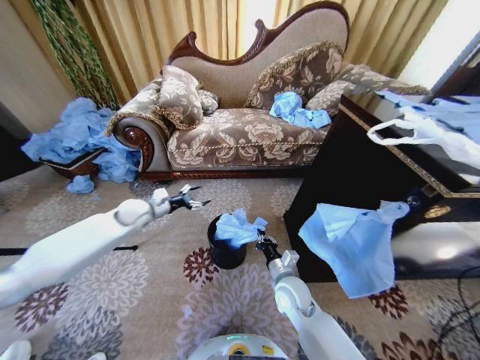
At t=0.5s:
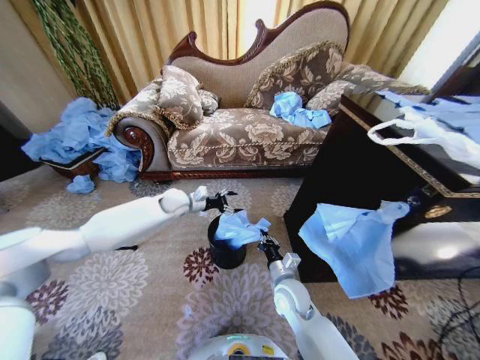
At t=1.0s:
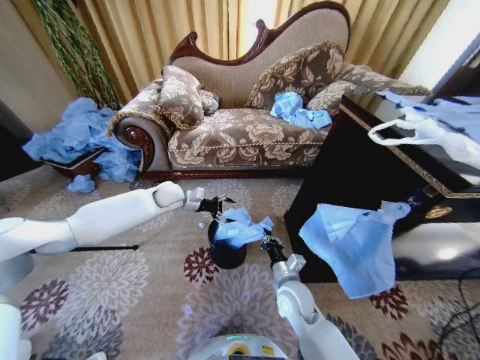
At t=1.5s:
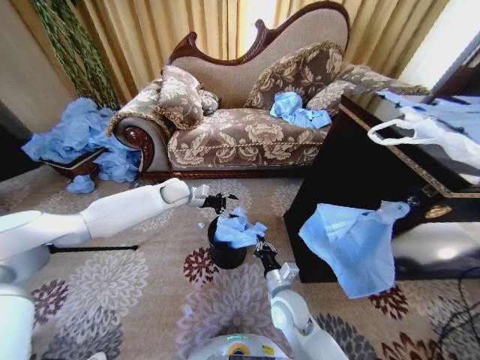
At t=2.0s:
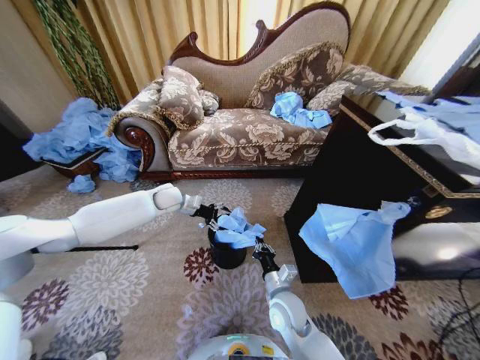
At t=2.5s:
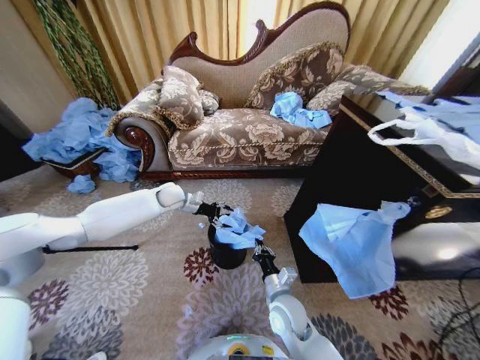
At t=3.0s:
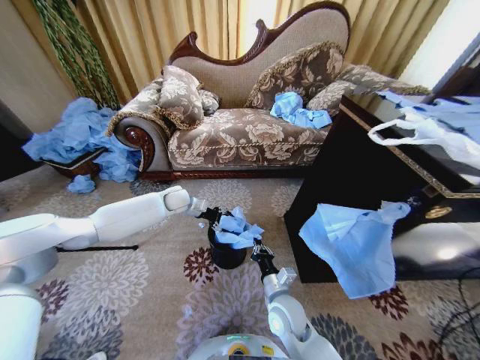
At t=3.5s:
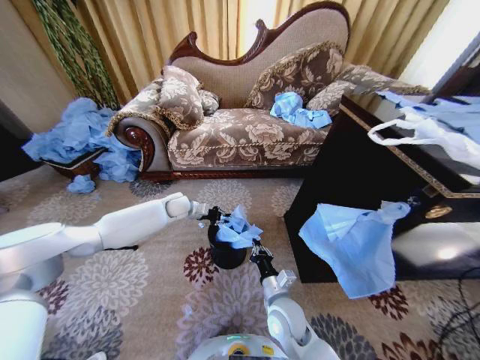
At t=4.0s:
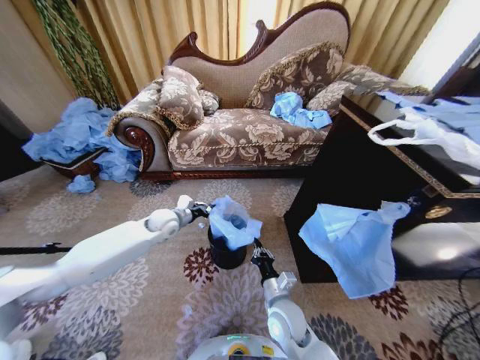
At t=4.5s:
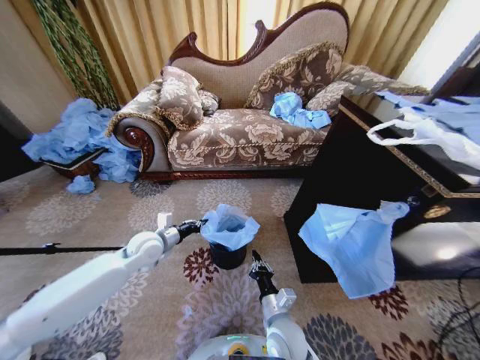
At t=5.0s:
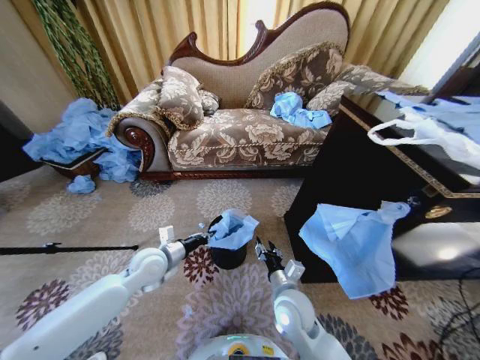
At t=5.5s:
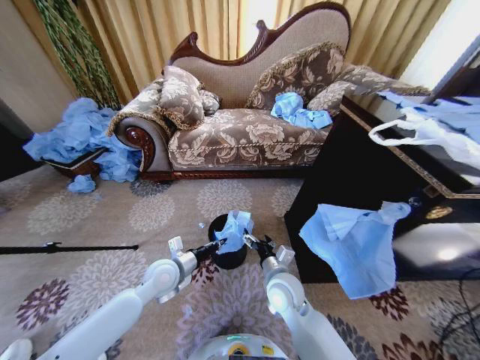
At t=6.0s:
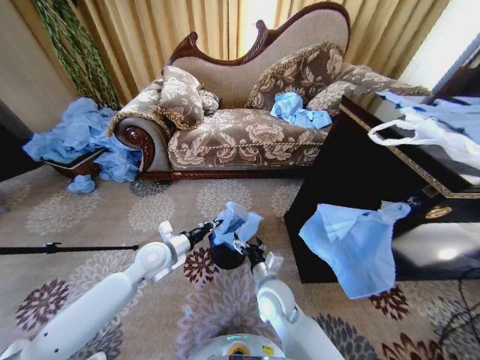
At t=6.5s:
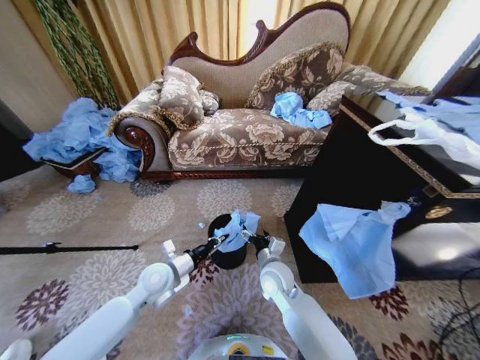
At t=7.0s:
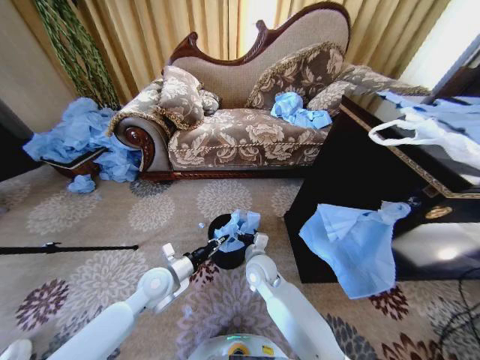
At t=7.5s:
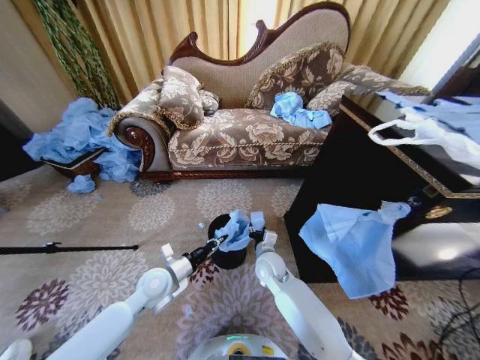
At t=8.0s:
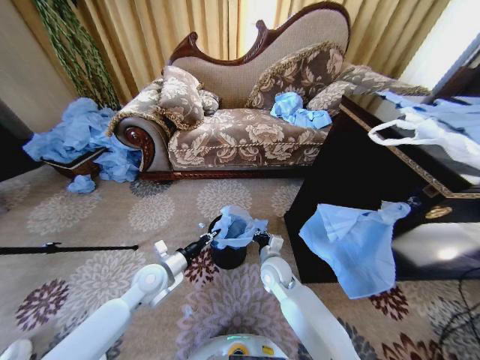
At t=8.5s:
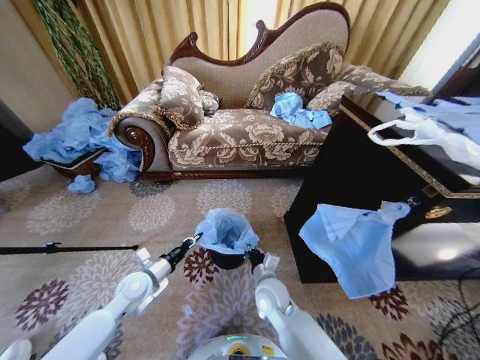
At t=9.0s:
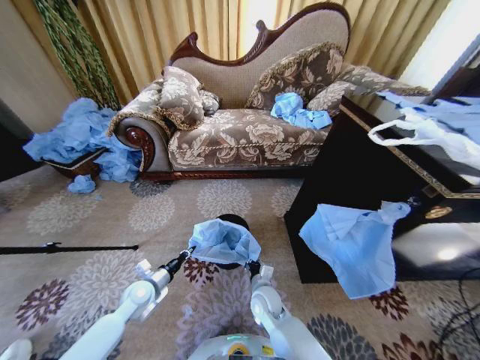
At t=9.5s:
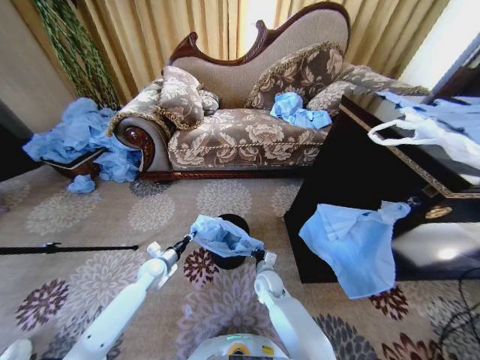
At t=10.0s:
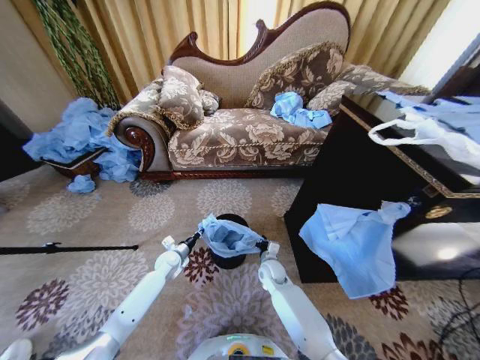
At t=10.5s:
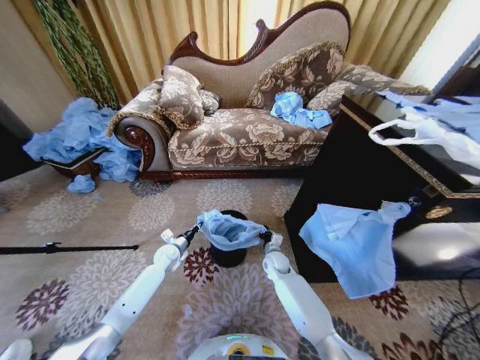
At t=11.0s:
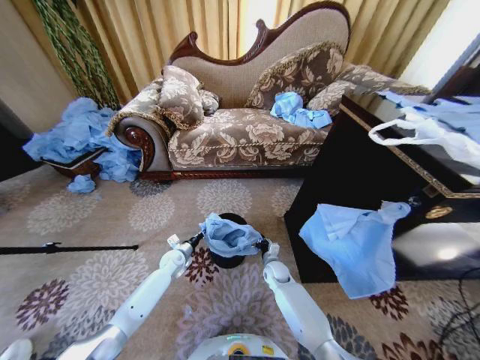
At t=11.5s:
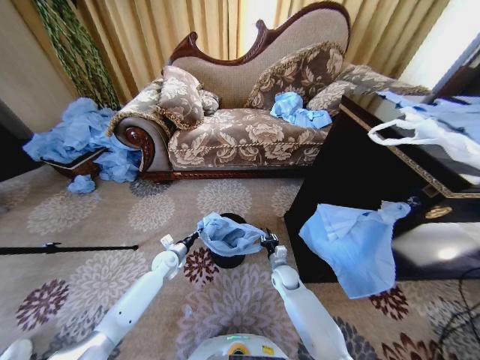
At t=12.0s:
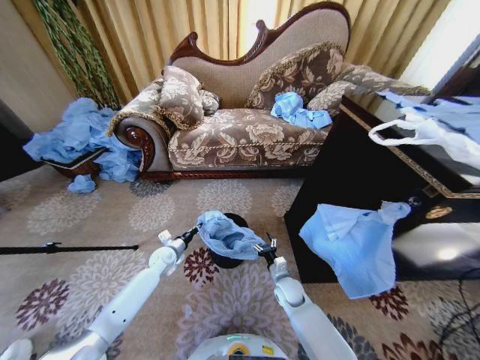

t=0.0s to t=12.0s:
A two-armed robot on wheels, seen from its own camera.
Task of the whole recording: Place a garbage bag over the trash bin.
t=0.0s to t=2.0s: The left gripper travels to the right and forward by some 10 cm.
t=2.0s to t=4.0s: The left gripper is displaced backward and downward by some 10 cm, and closes.
t=4.0s to t=6.0s: The right gripper moves roughly 5 cm, and opens its fingers. The left gripper travels backward by about 10 cm.
t=6.0s to t=8.0s: The left gripper changes place by some 5 cm. The right gripper heads forward, covering about 10 cm, and closes.
t=8.0s to t=10.0s: The left gripper goes about 20 cm downward and forward. Meanwhile the right gripper shifts some 10 cm downward.
t=10.0s to t=12.0s: The right gripper travels to the right and backward by approximately 10 cm, and opens its fingers.

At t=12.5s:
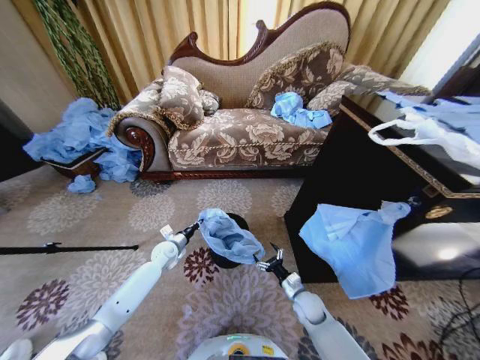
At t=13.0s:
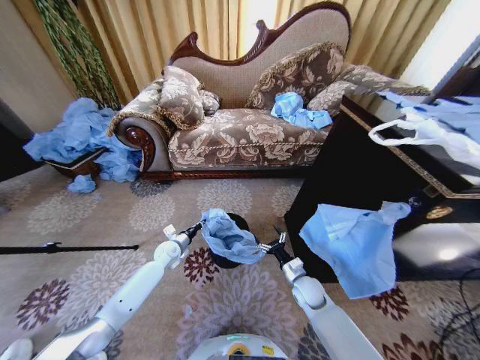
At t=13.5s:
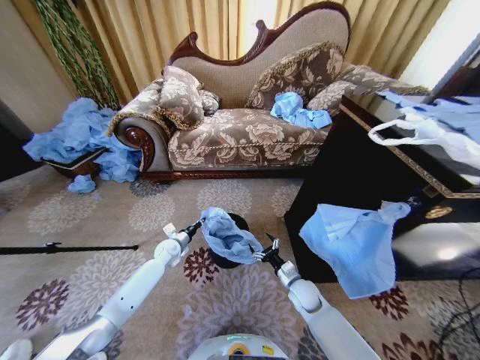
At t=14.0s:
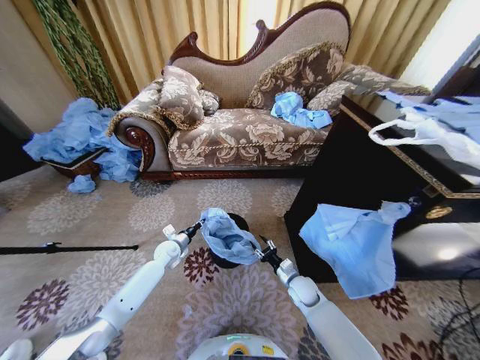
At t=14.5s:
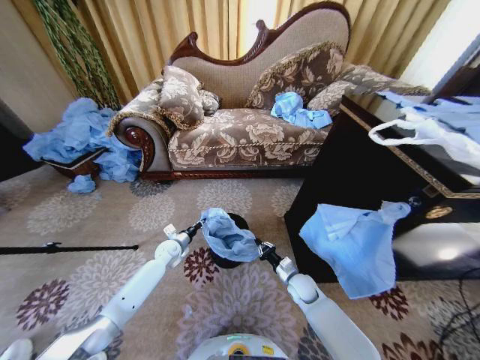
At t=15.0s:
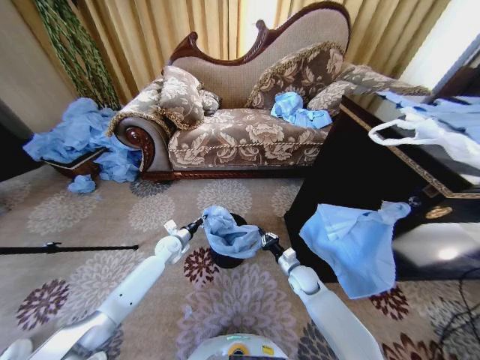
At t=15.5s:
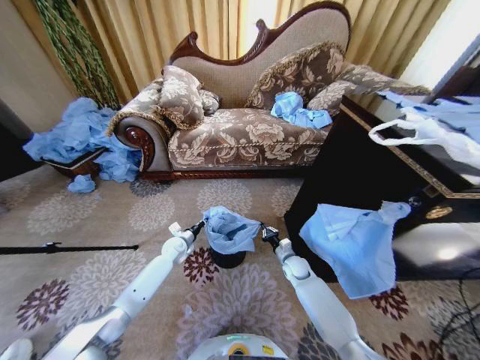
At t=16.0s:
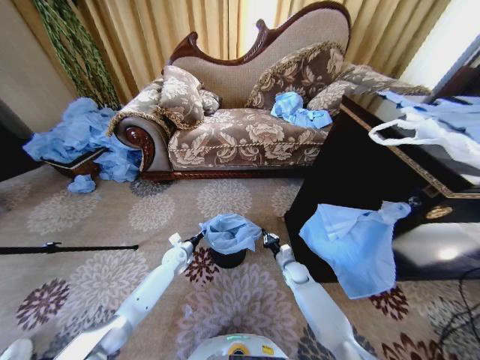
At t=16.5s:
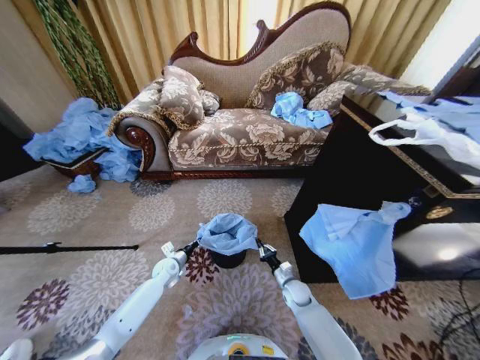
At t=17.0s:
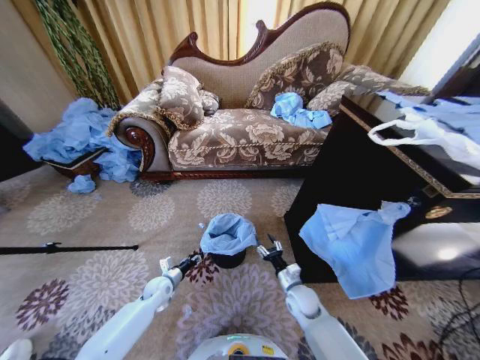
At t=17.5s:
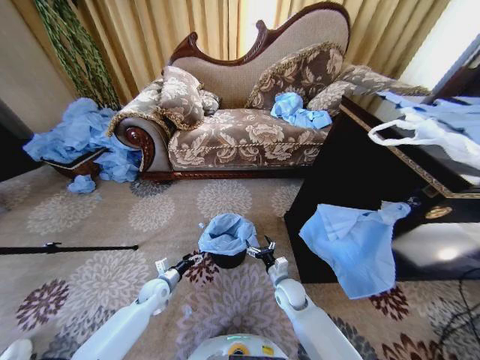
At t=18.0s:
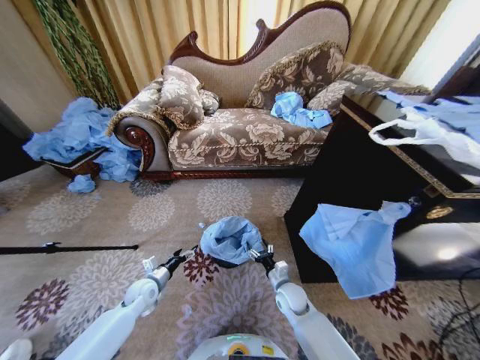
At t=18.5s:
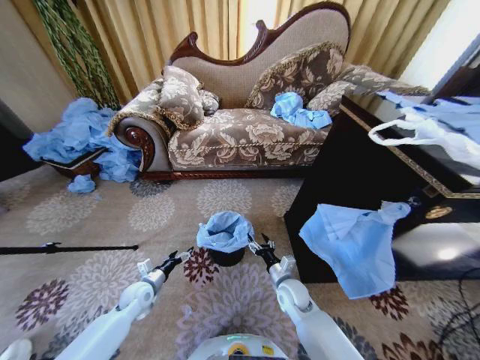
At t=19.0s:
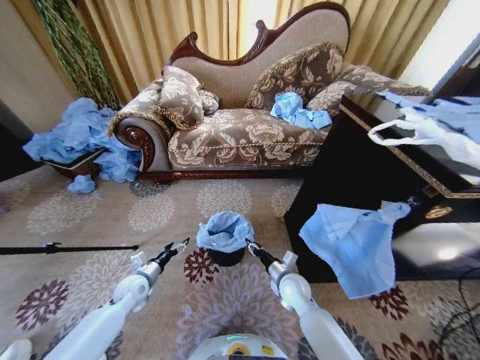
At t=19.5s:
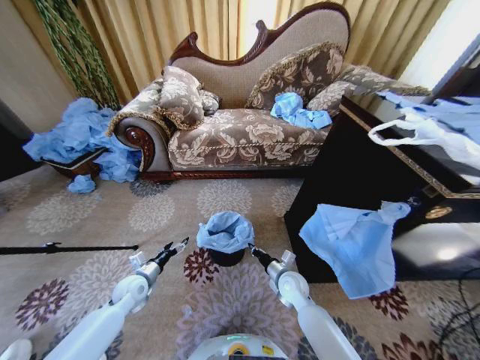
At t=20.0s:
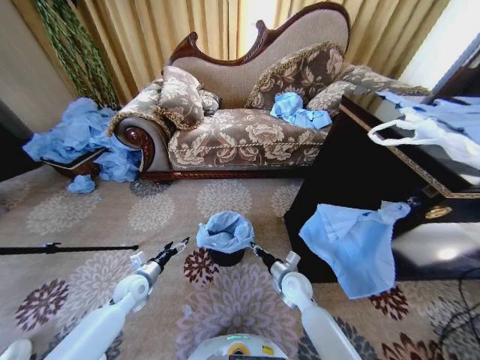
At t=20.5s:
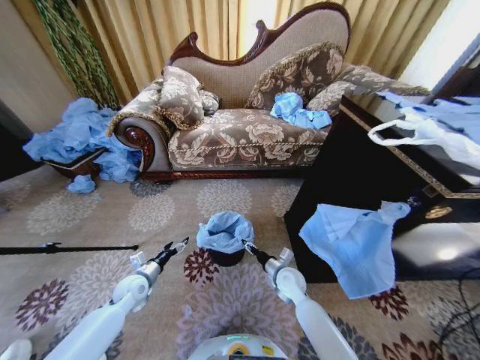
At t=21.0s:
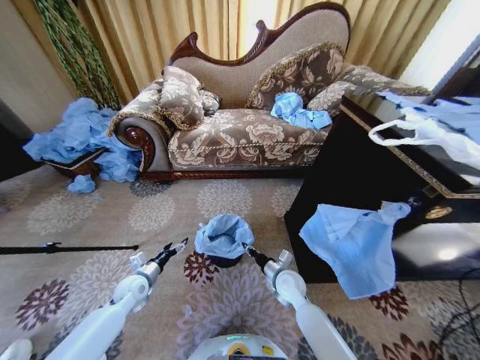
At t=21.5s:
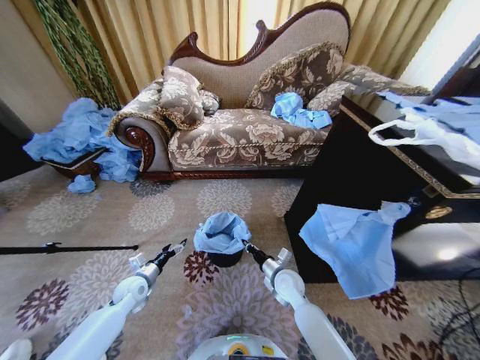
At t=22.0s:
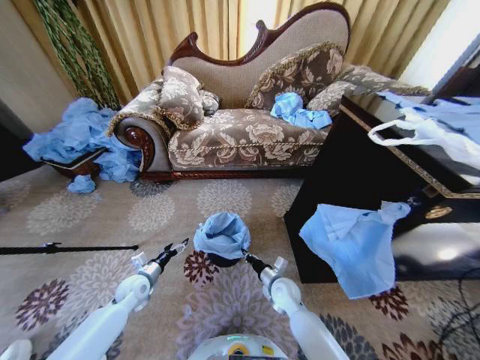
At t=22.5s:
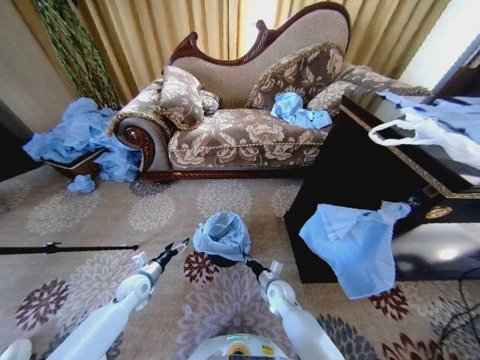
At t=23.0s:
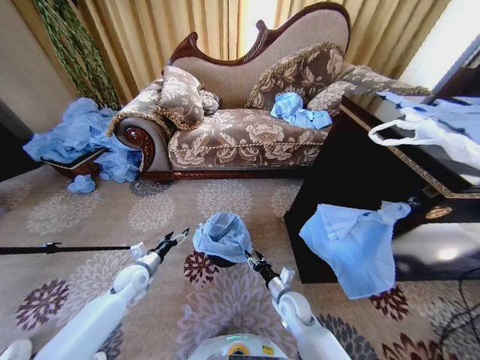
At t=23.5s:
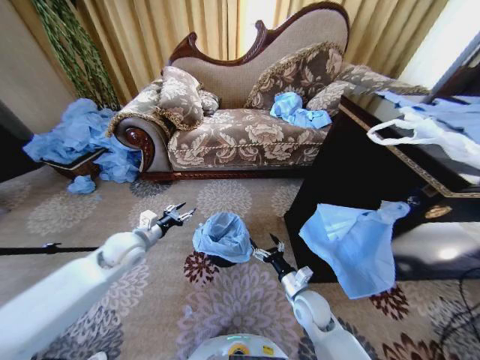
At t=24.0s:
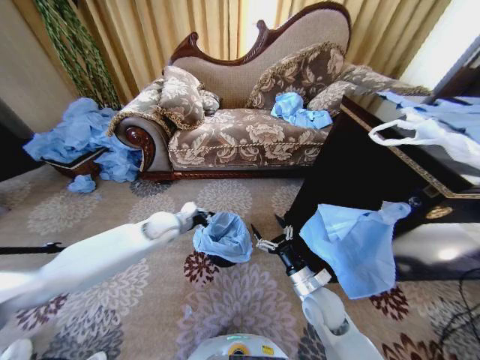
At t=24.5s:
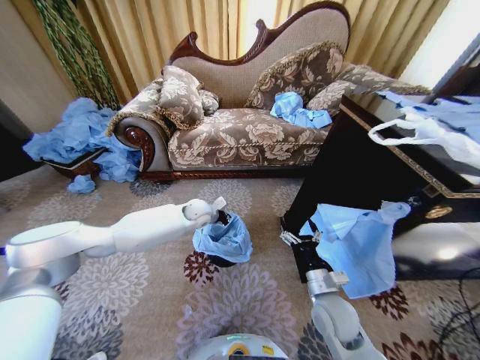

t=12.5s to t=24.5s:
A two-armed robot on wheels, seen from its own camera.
Task of the whole recording: Place a garbage bag over the trash bin.
t=12.5s to t=14.5s: The right gripper is displaced forward by some 5 cm, and closes its fingers.
t=14.5s to t=16.5s: The right gripper moves about 5 cm forward and comes back. Meanwhile the left gripper is displaced backward by approximately 5 cm.
t=16.5s to t=18.5s: The left gripper shifts approximately 10 cm backward and to the left, and opens its fingers. The right gripper travels upward and to the left by roughly 10 cm, and opens.
t=18.5s to t=20.5s: The right gripper closes and opens again.
t=20.5s to t=22.5s: The right gripper is displaced downward by approximately 10 cm, and closes.
t=22.5s to t=24.5s: The right gripper shifts approximately 20 cm upward, backward and to the right, and opens up, while the left gripper travels to the right, forward and upward by roughly 35 cm, and closes its fingers.

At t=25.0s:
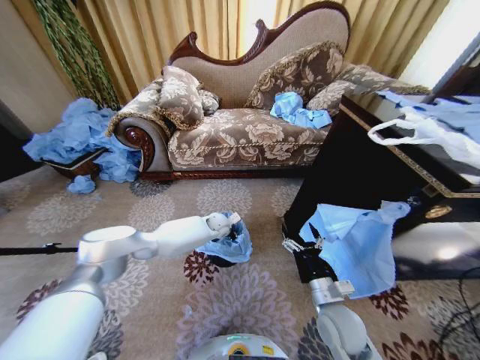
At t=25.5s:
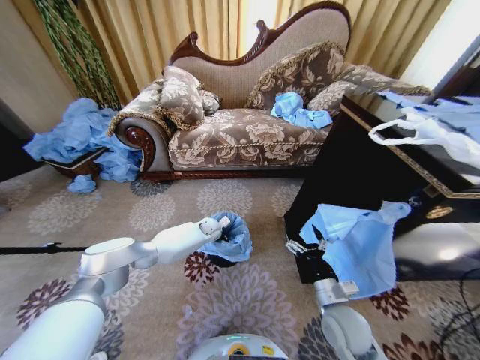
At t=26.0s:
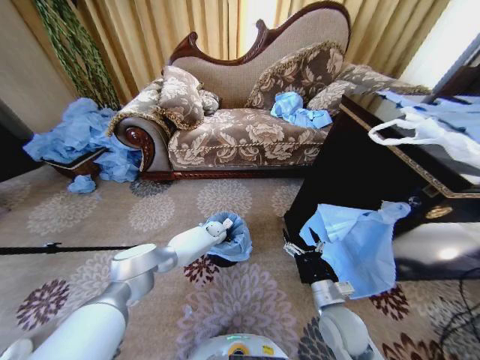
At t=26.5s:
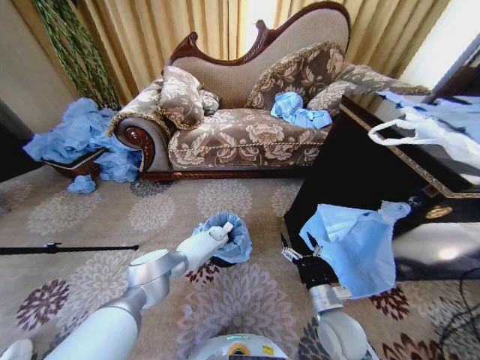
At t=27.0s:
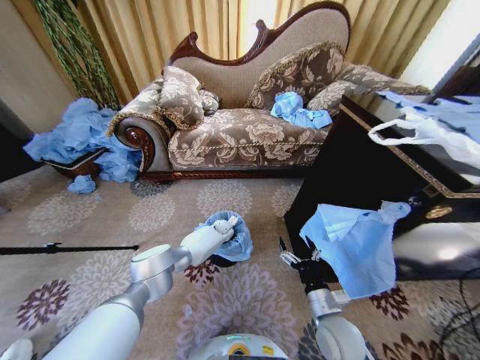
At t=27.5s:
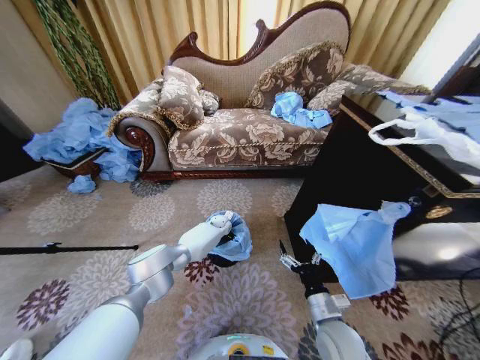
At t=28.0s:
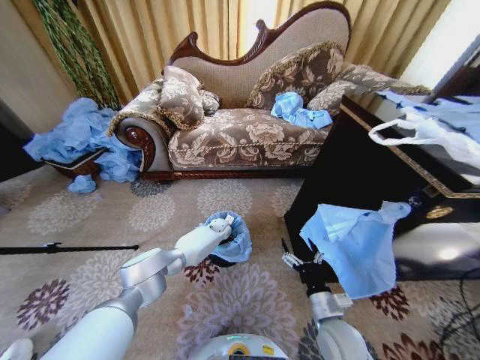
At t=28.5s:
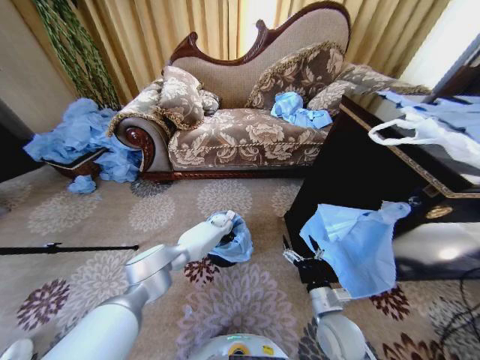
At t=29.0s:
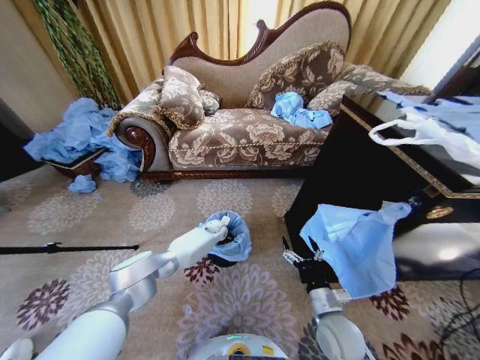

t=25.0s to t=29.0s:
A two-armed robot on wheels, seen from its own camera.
Task of the whole recording: Place a garbage bag over the trash bin.
t=25.0s to t=27.0s: The left gripper travels downward by about 10 cm.
t=27.0s to t=29.0s: The left gripper opens.
